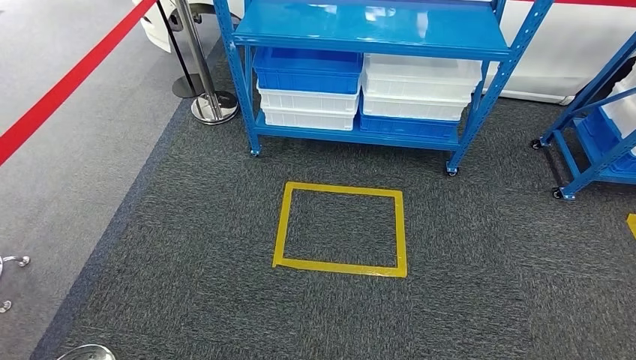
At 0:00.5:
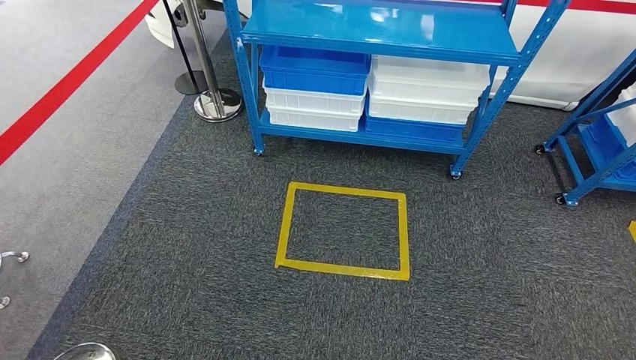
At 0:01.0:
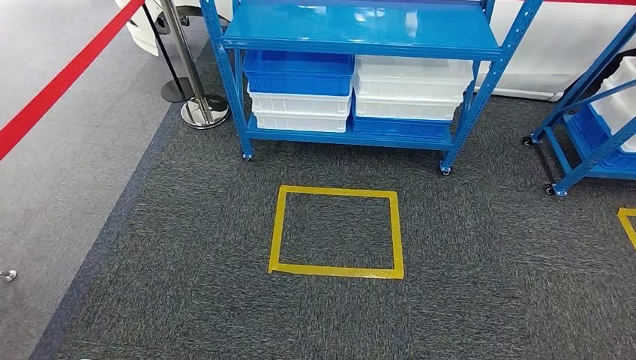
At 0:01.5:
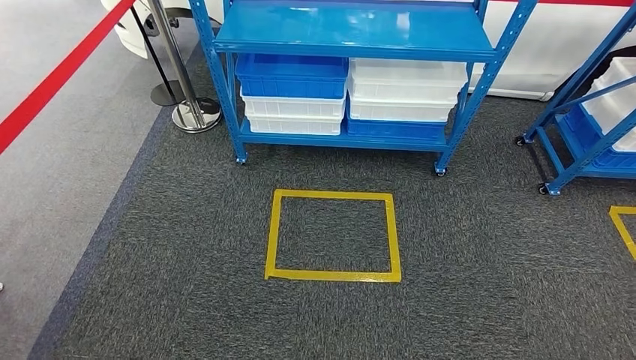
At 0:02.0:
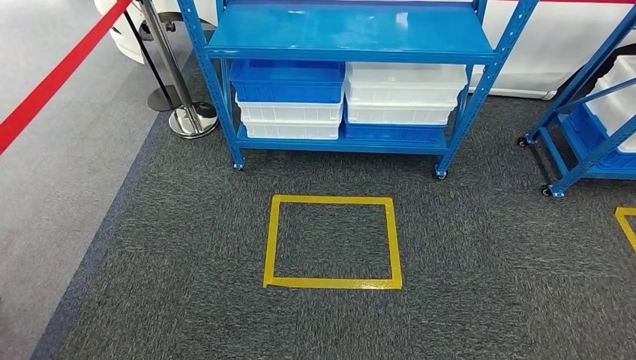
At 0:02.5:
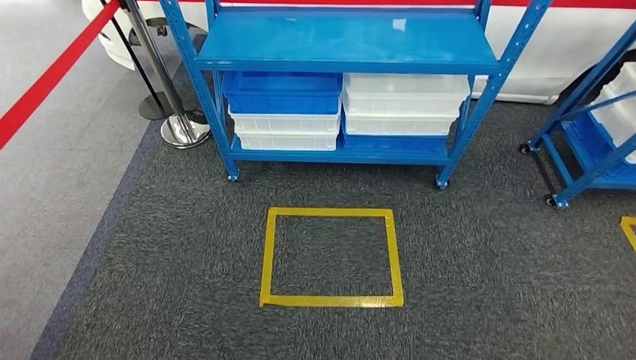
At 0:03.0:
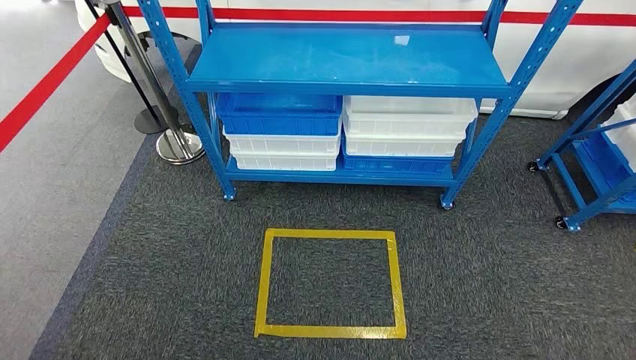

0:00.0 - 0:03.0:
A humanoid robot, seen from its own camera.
Step, 0:00.0 - 0:03.0: Move to the initial position of the shelf.

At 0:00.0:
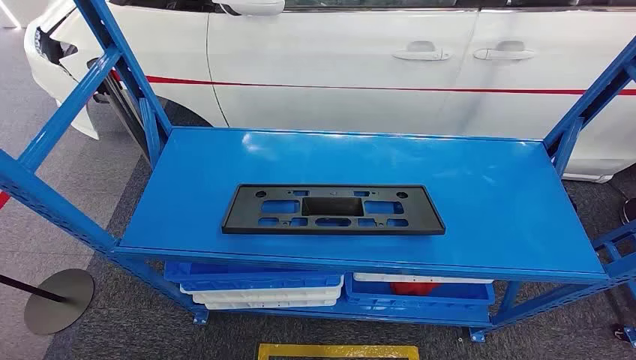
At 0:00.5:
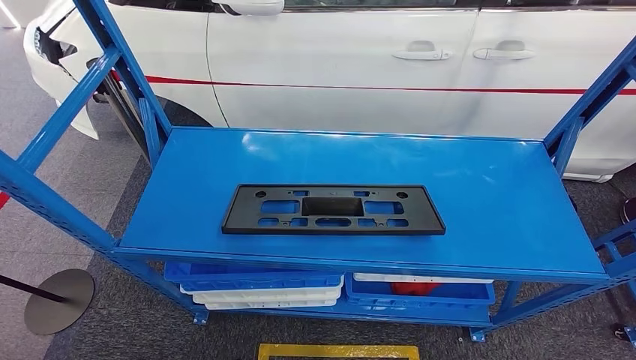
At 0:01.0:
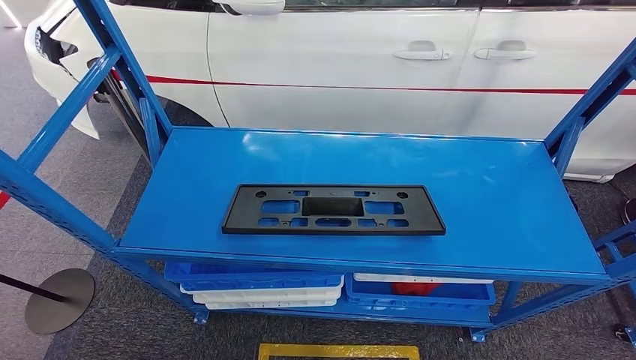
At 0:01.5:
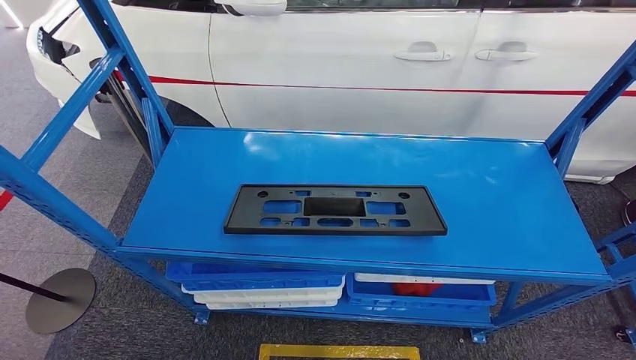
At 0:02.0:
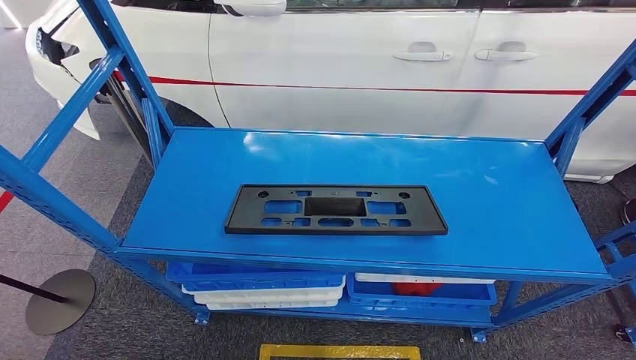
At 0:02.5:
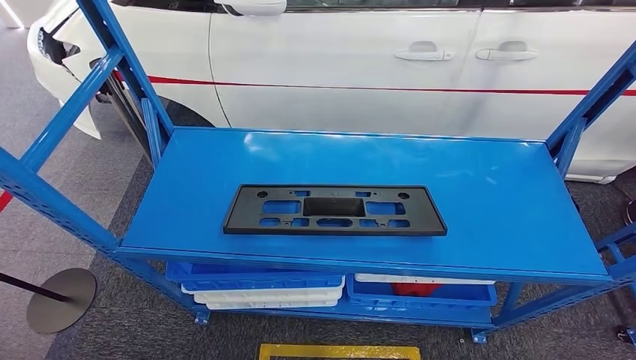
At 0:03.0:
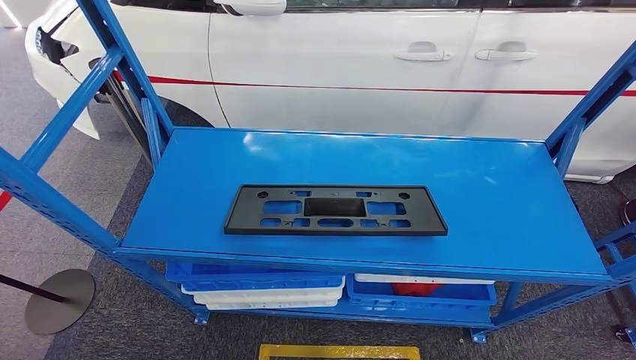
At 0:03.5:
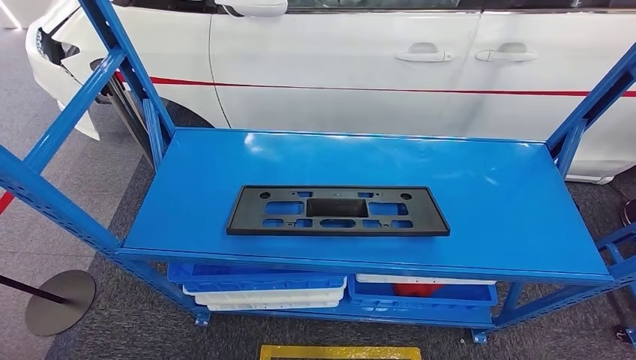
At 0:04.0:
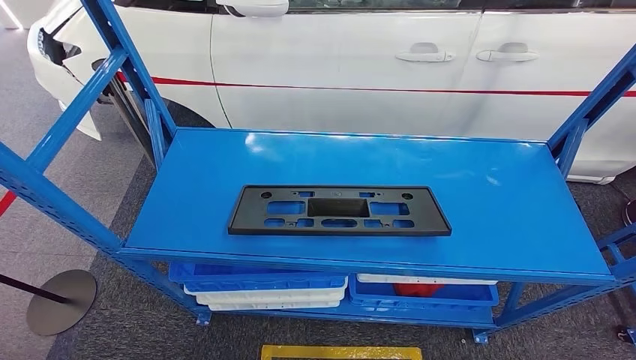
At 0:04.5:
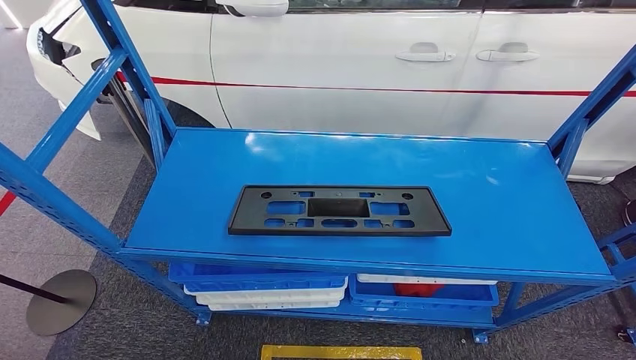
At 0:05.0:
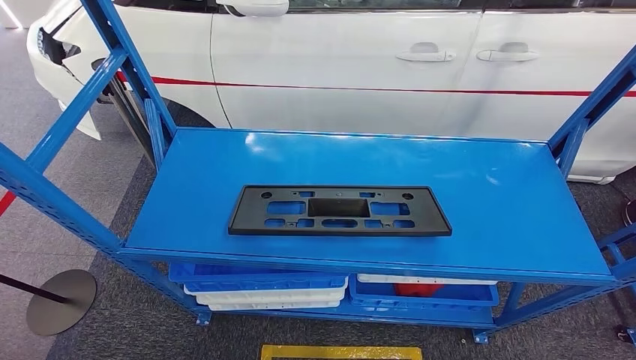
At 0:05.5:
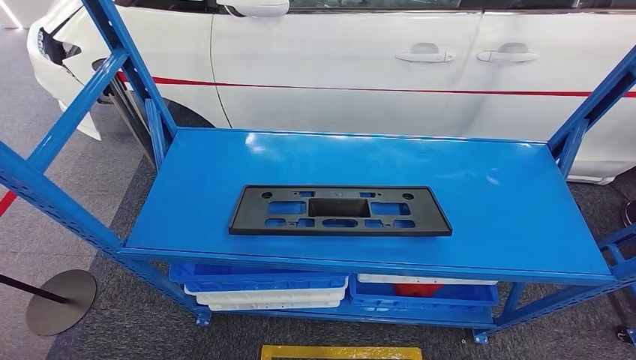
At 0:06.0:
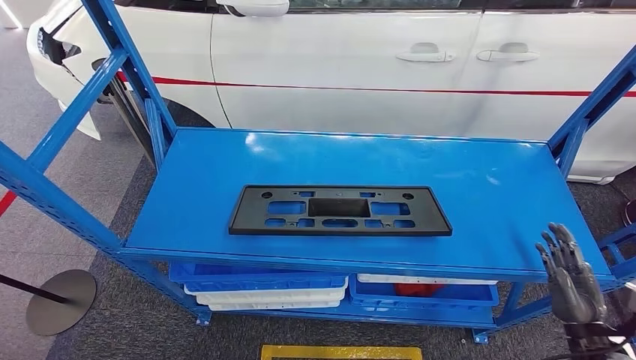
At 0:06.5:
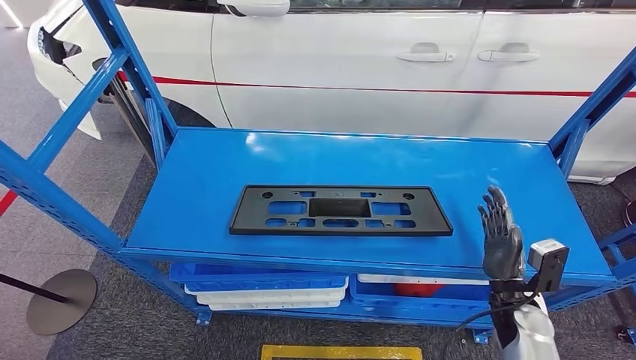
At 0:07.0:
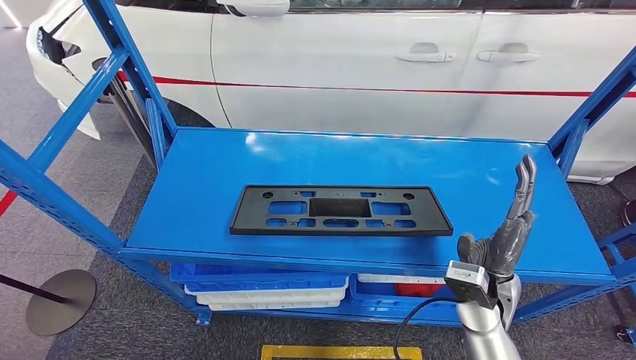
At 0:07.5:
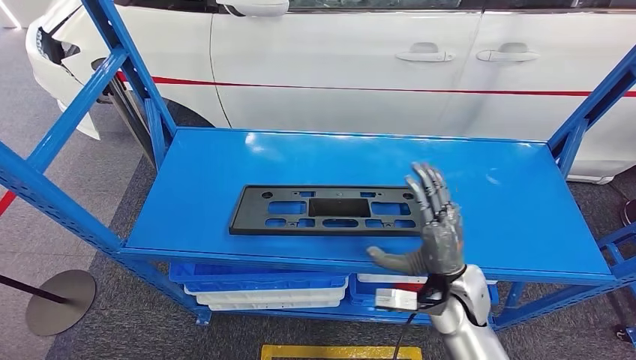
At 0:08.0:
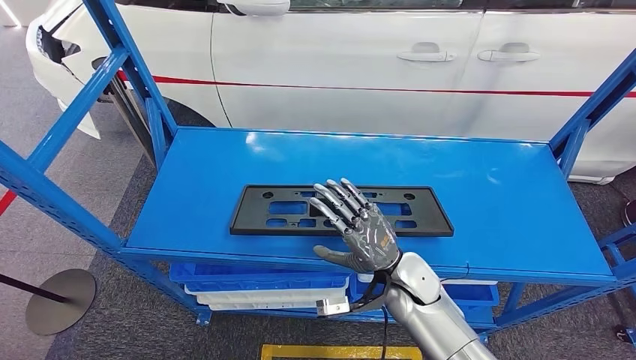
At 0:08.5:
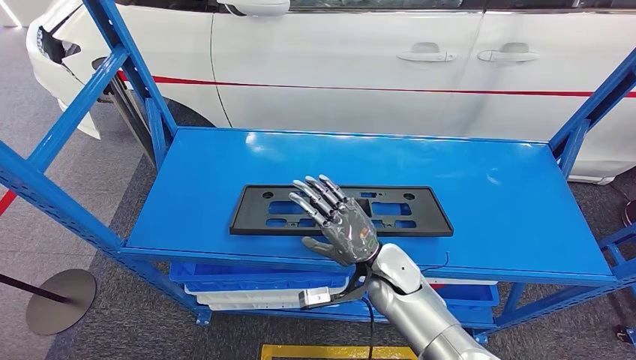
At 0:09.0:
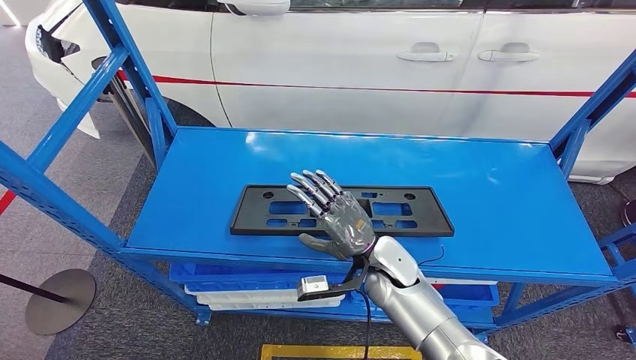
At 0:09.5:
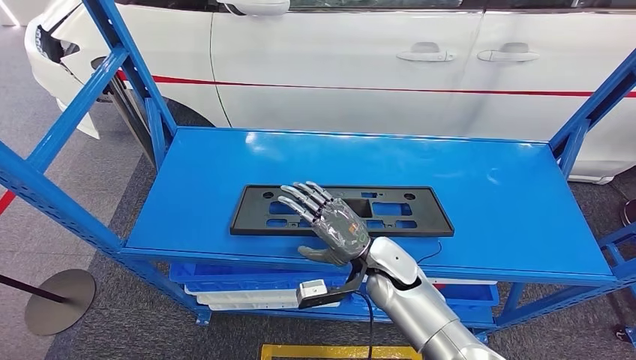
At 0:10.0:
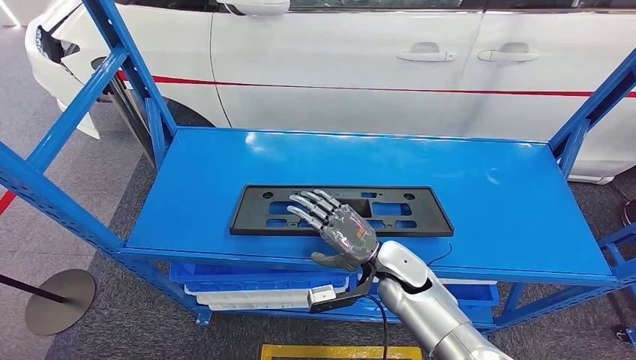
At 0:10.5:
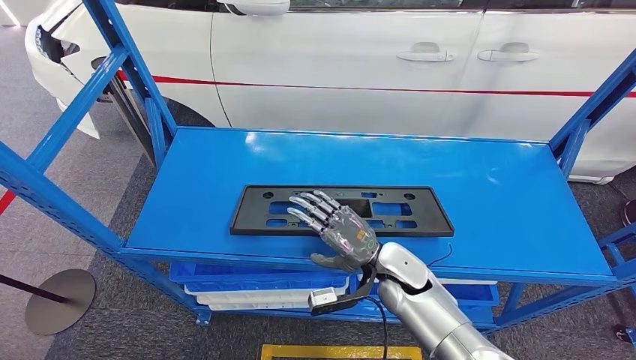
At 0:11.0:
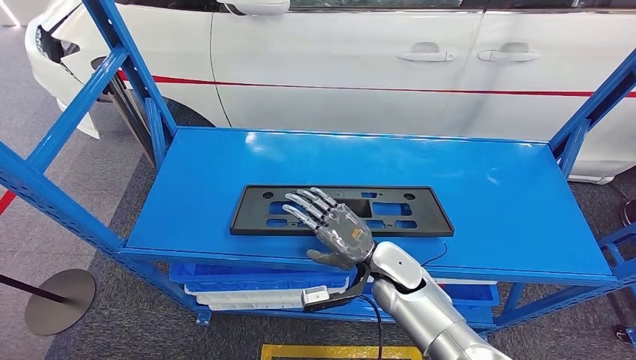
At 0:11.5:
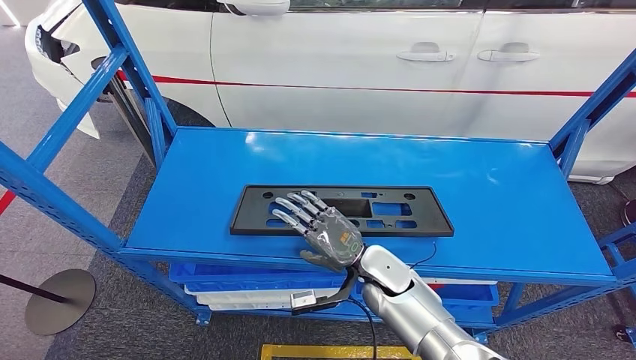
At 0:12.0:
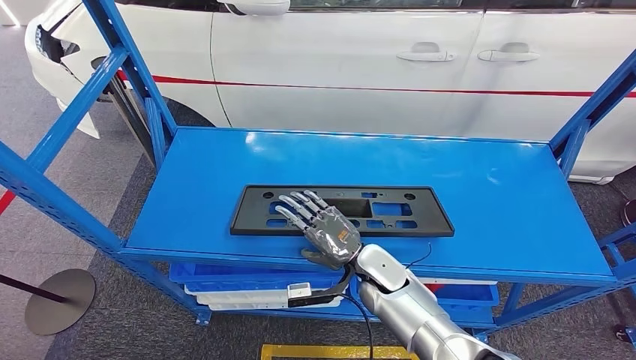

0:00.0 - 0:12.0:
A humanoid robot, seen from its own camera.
0:02.0 - 0:04.0: The right hand goes to the left and returns, approximately 20 cm each way.
0:04.0 - 0:06.0: The right hand is displaced forward and to the left by roughly 25 cm.
0:06.0 - 0:08.0: The right hand moves to the left and forward, some 35 cm.
0:10.0 - 0:12.0: The hands make only small movements.

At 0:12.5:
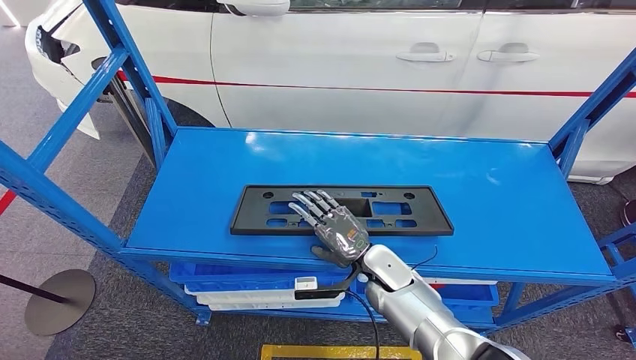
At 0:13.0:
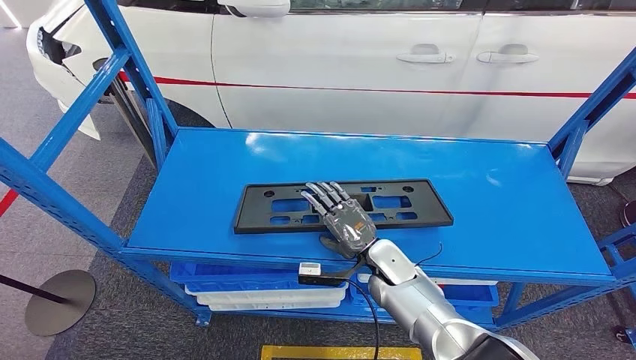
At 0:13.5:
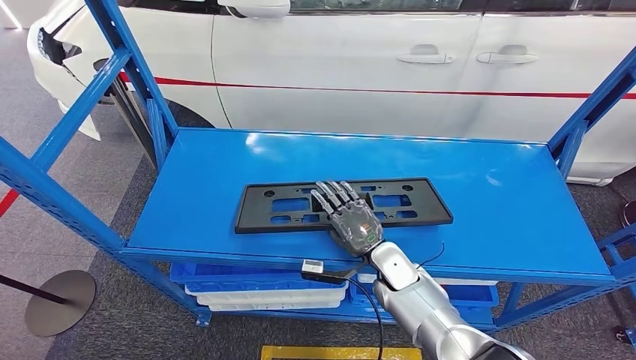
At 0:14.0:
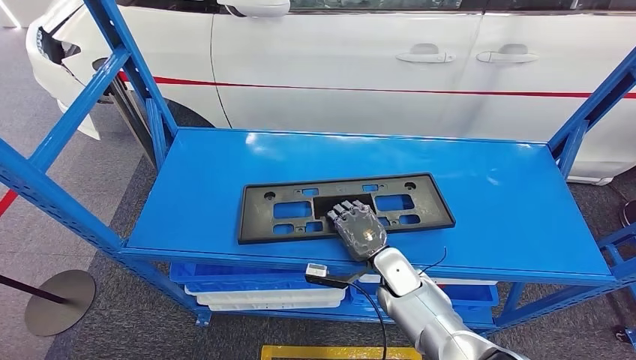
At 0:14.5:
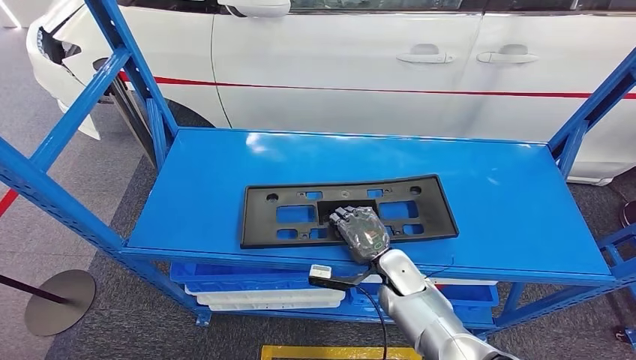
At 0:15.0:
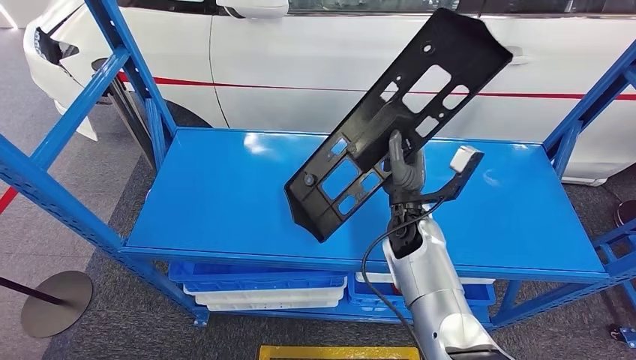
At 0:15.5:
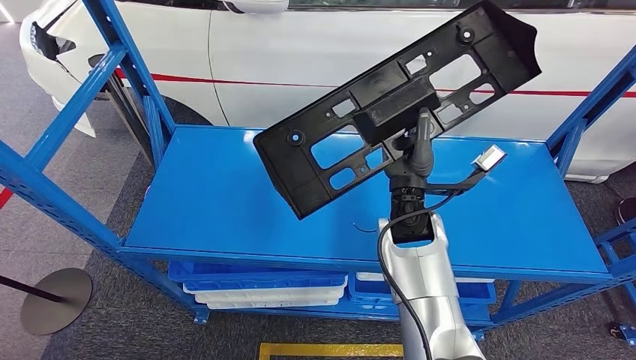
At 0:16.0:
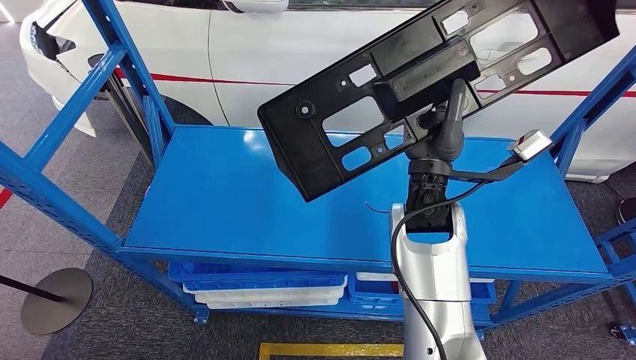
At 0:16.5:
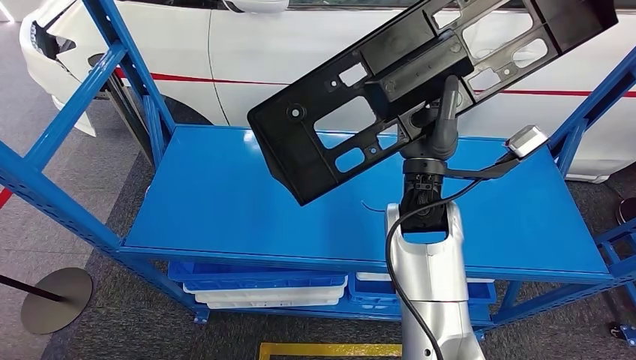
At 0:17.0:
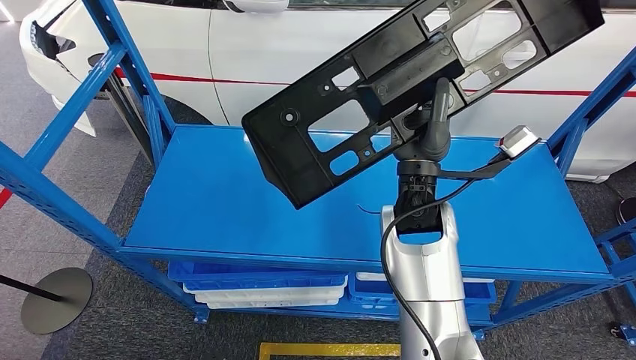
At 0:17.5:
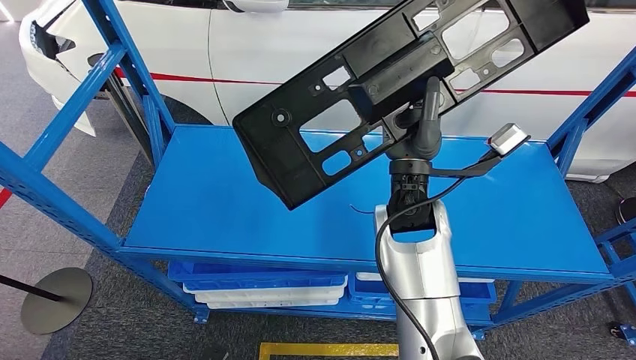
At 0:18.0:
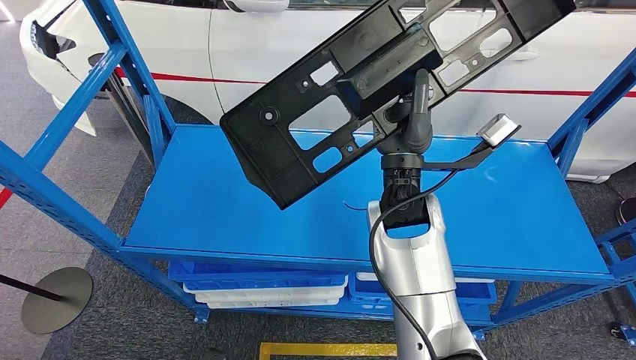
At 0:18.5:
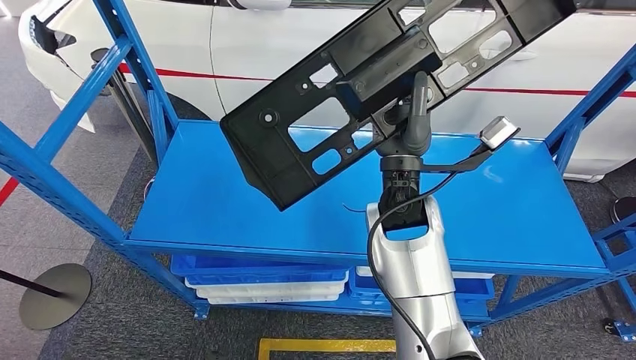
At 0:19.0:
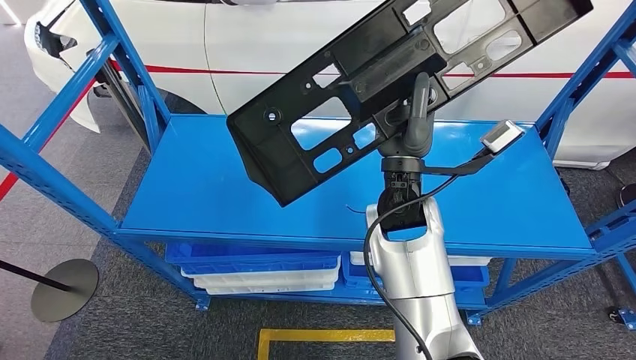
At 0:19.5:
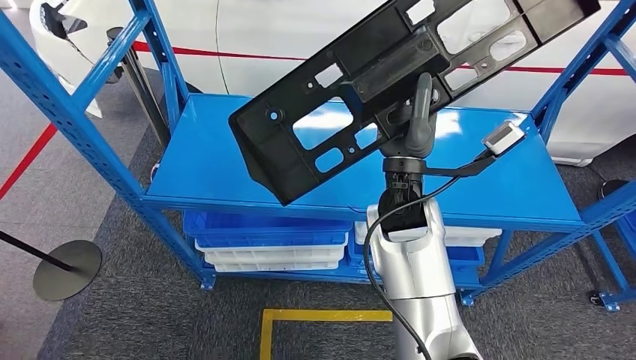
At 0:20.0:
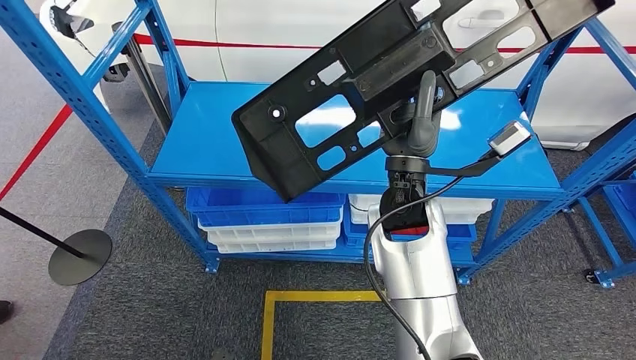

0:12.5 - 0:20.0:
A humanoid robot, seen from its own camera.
Step, 0:12.5 - 0:15.0: Pick up the large material from the shelf.
0:12.5 - 0:14.5: The hands make only small movements.
